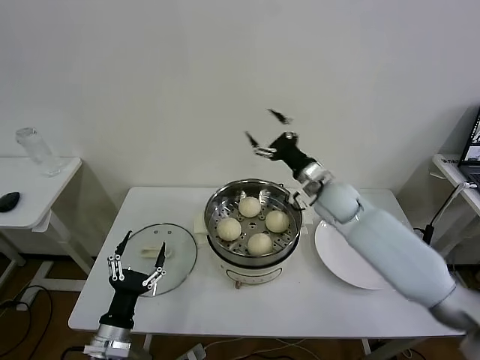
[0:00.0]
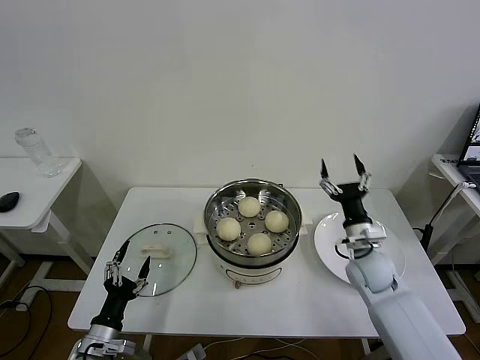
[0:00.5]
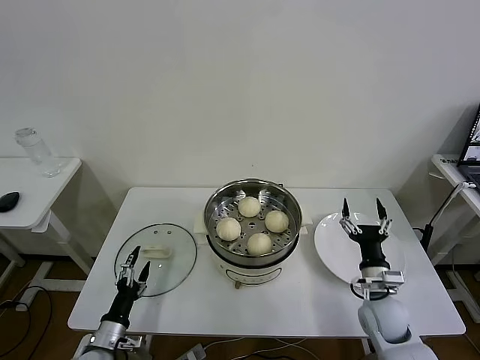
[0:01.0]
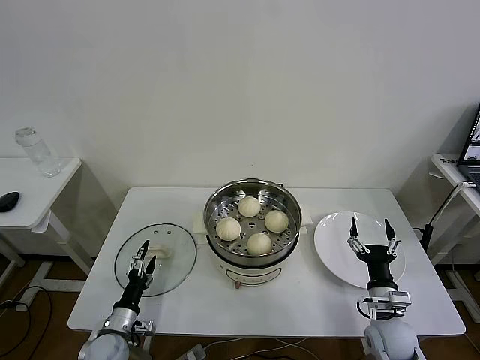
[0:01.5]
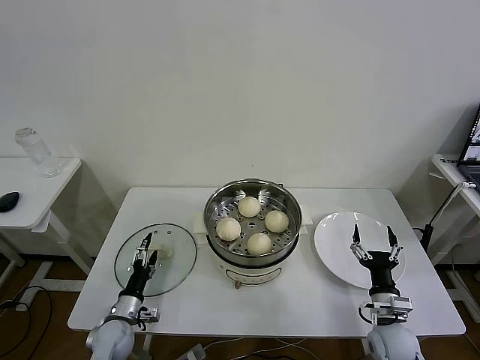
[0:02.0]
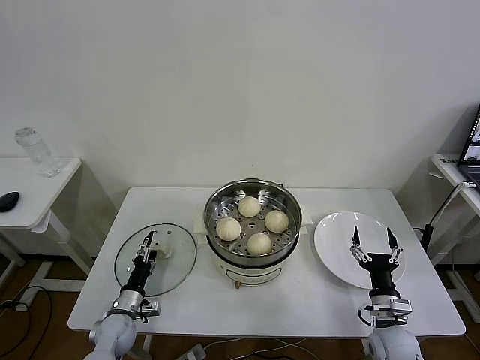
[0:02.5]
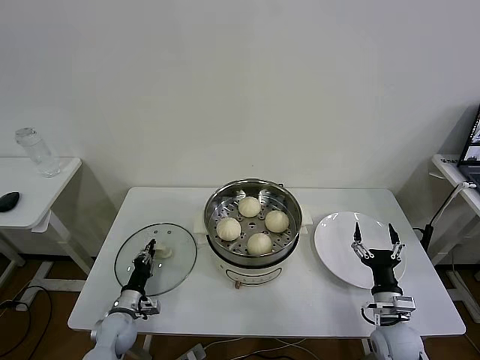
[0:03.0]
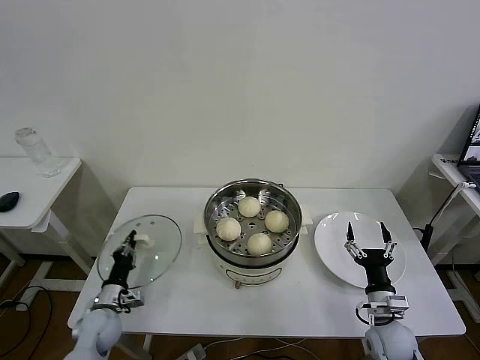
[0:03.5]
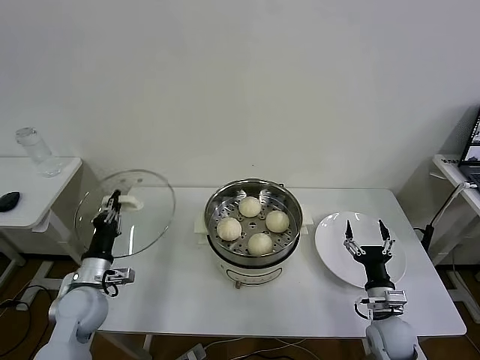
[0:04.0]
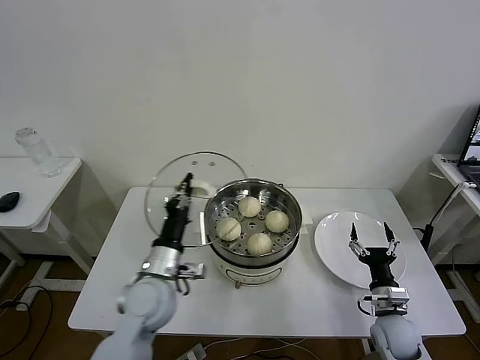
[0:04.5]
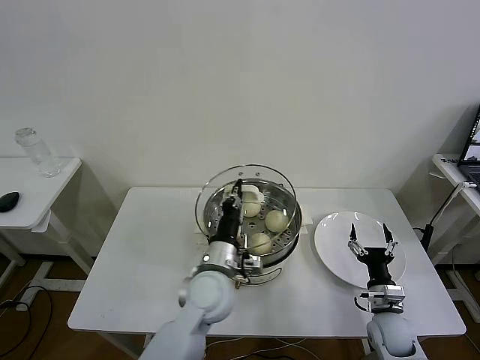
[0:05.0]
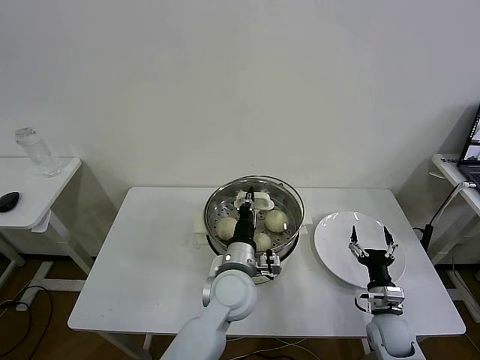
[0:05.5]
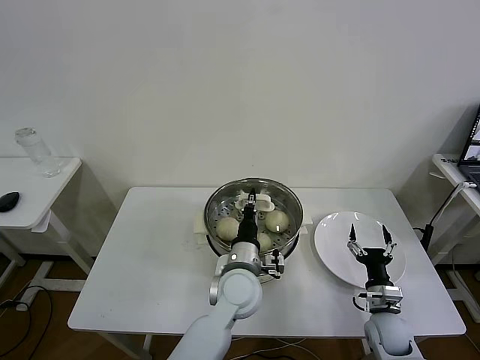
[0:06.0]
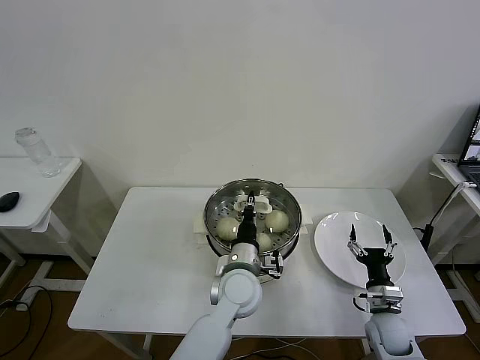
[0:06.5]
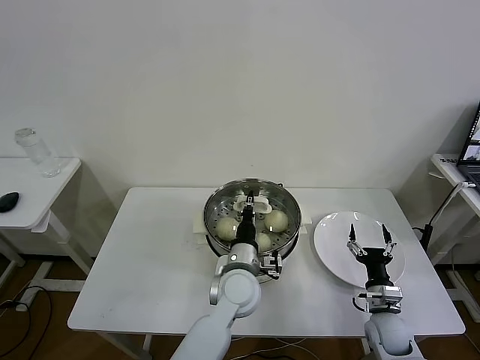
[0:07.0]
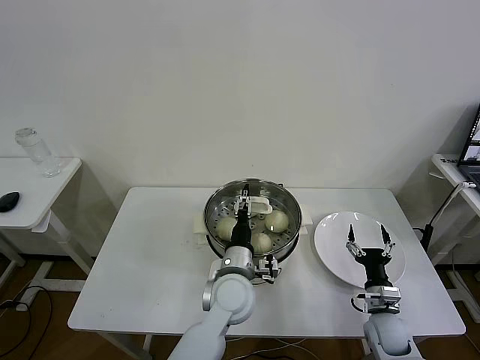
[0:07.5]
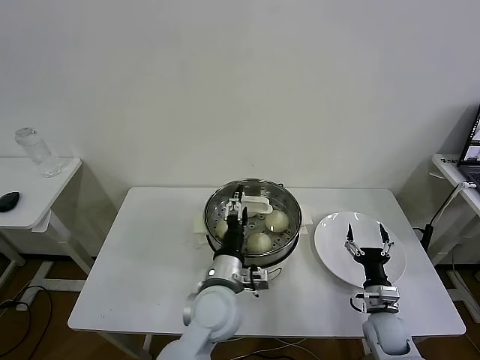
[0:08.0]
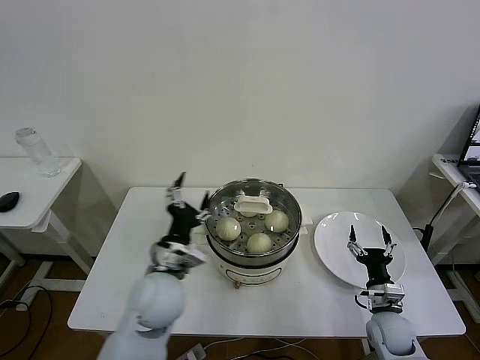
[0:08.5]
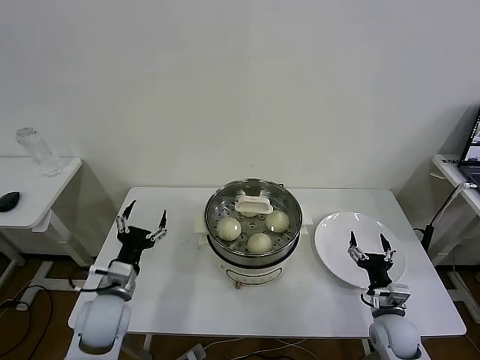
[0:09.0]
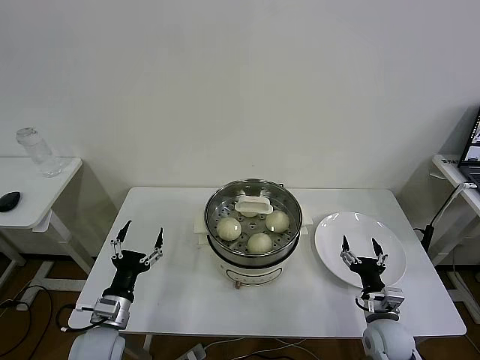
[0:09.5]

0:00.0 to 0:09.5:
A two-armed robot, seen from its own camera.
Task of the whole recording: take steamed baozi put them in steamer then cover it.
Step, 0:00.0 to 0:03.0: Grasp the pot lid with left gripper.
Step, 0:03.5 to 0:07.5: Place the pot lid on the steamer with left gripper.
0:00.0 to 0:02.0: The right gripper travels backward, downward and to the right by approximately 35 cm. Meanwhile the left gripper heads downward and forward, covering roughly 15 cm.
0:02.0 to 0:04.0: The left gripper heads upward, covering roughly 15 cm, and closes.
0:04.0 to 0:05.5: The left gripper is displaced to the right by roughly 30 cm.
0:05.5 to 0:07.5: The left gripper opens its fingers.
0:07.5 to 0:09.5: The left gripper moves to the left, roughly 25 cm.
